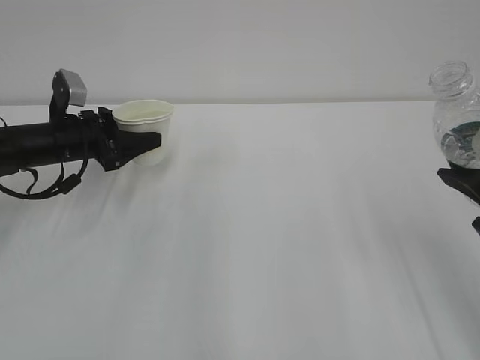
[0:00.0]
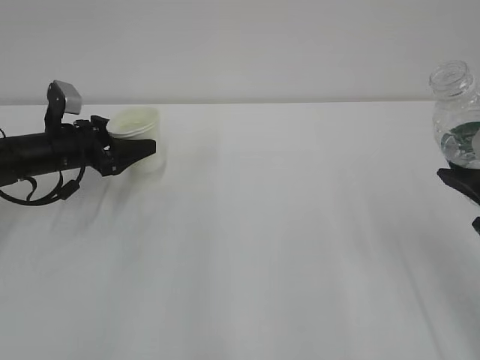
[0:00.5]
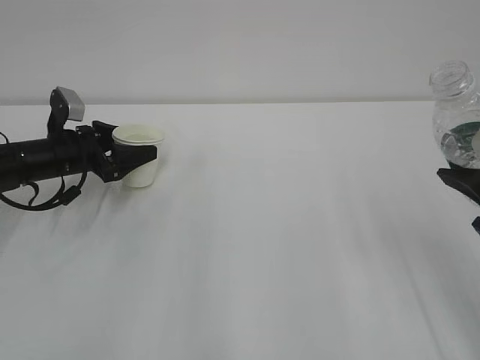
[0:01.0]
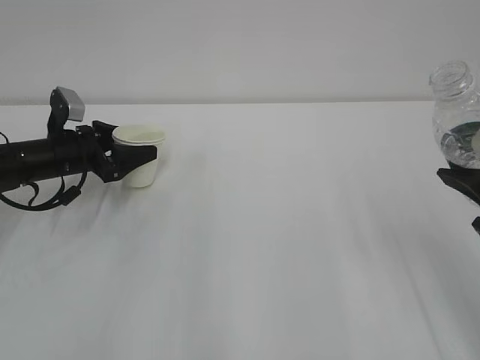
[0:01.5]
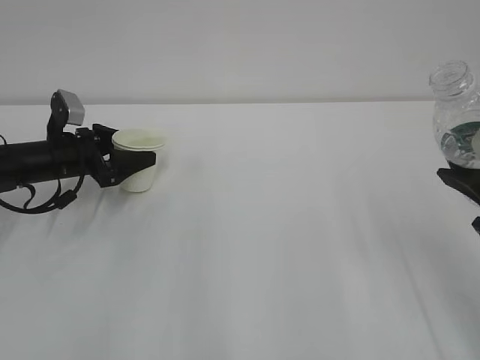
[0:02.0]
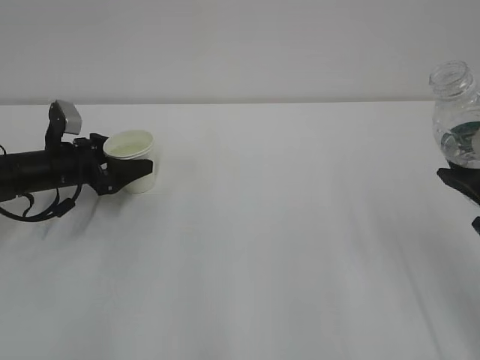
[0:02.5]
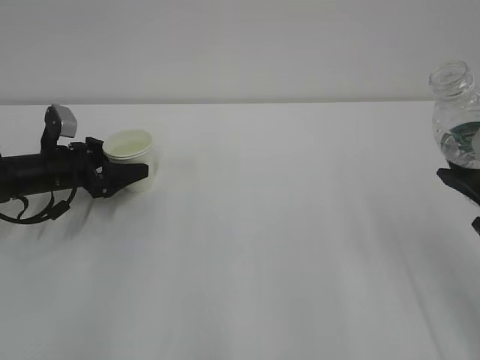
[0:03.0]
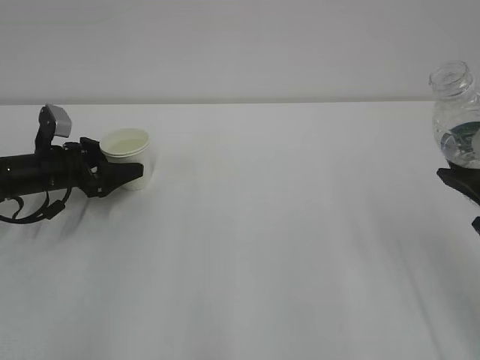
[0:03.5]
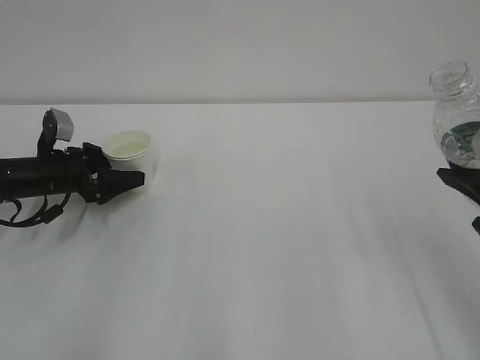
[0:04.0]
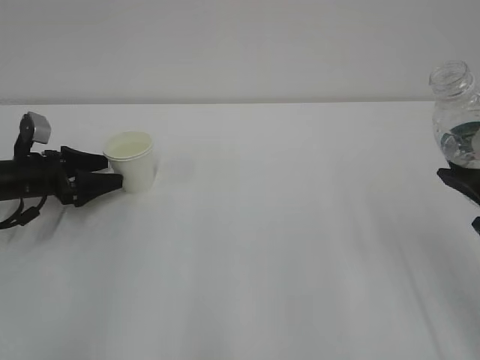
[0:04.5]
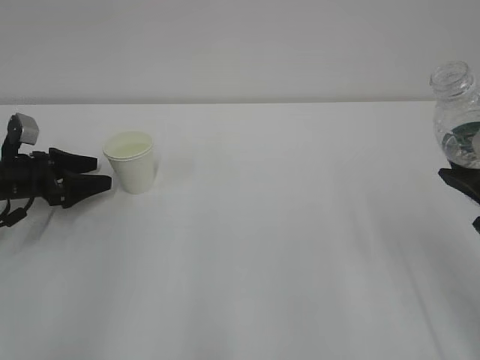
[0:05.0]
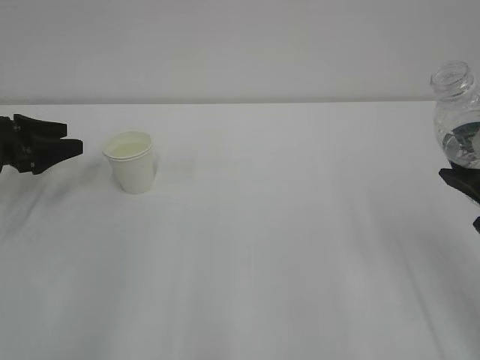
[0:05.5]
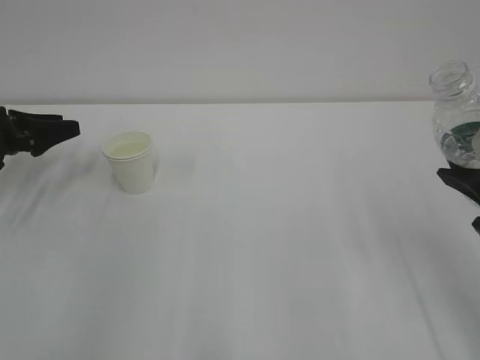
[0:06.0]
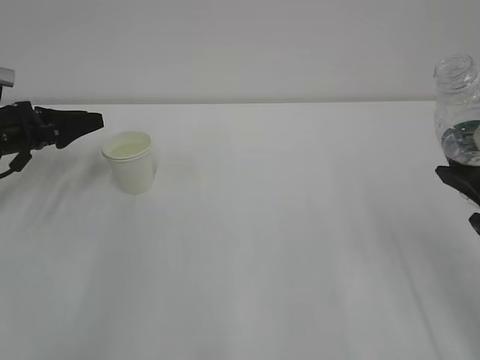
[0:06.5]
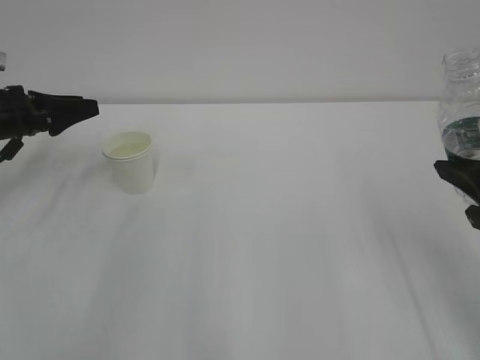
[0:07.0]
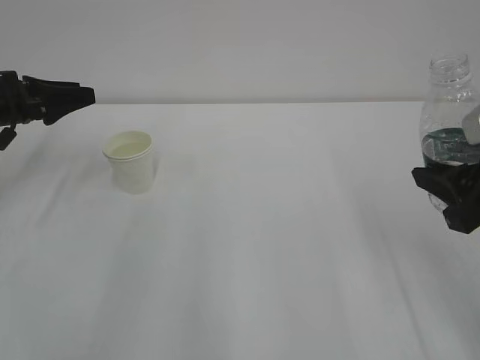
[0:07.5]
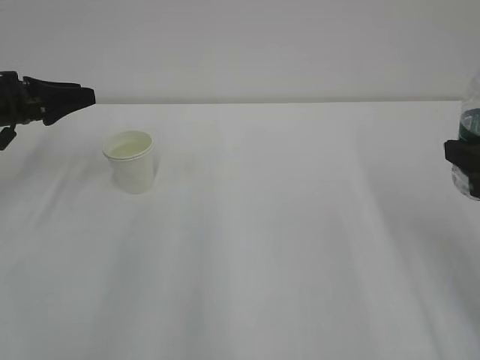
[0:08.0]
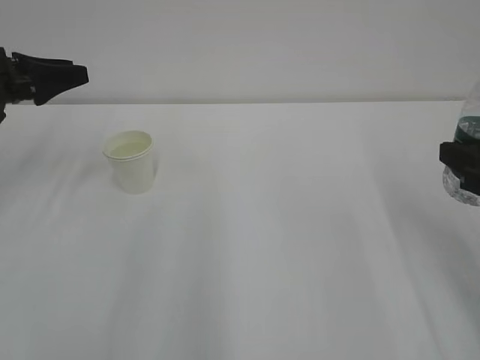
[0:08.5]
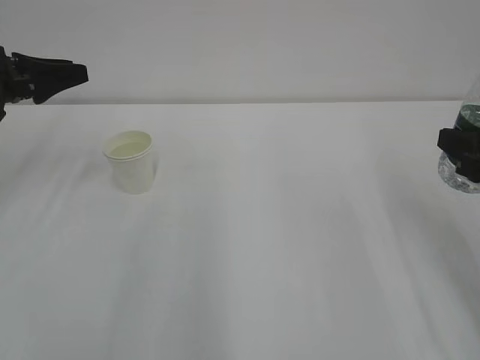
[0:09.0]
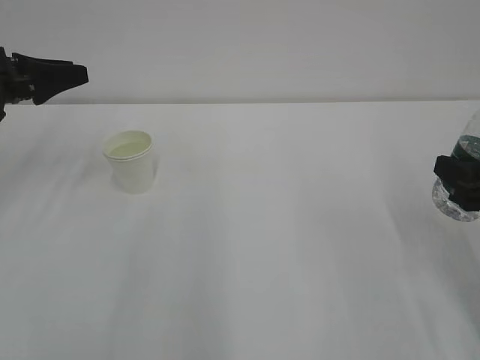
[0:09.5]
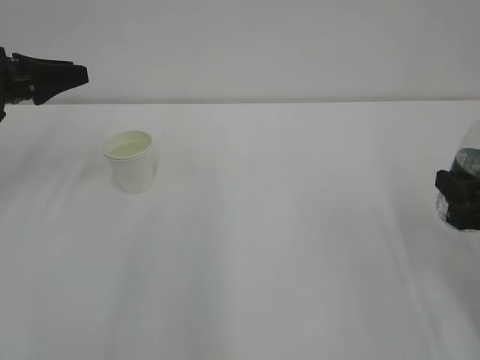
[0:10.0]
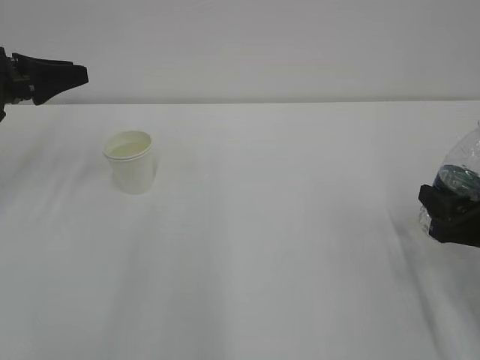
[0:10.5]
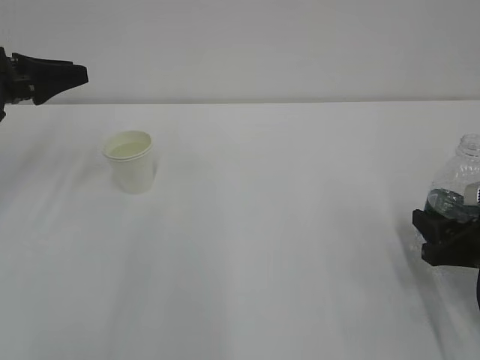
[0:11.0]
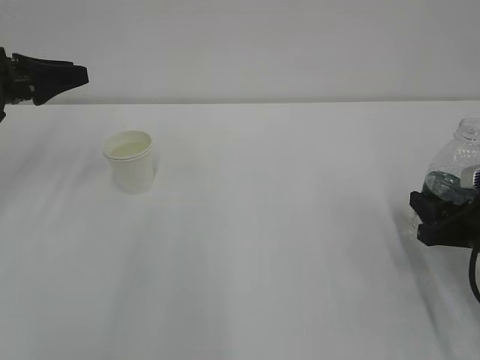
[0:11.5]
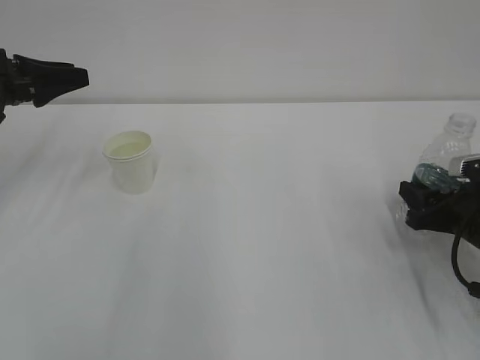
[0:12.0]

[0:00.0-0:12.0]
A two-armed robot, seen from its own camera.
0:00.0 to 0:02.0: The grippers move only a little.
0:02.0 to 0:04.0: The grippers make only small movements.
0:04.0 to 0:06.0: The left gripper is displaced to the left and upward by approximately 10 cm.
0:06.0 to 0:08.0: The left gripper shifts roughly 5 cm upward.
0:08.0 to 0:10.0: The right gripper shifts some 10 cm downward.
0:10.0 to 0:12.0: The right gripper travels downward and forward by about 10 cm.

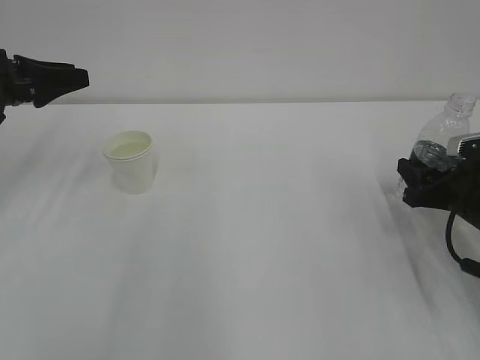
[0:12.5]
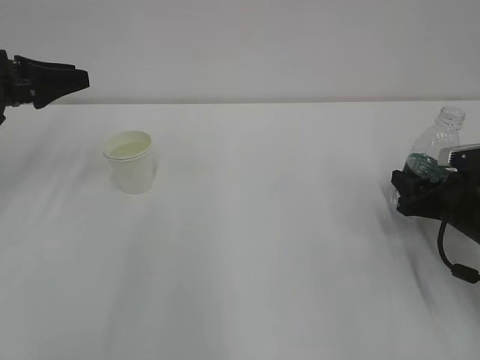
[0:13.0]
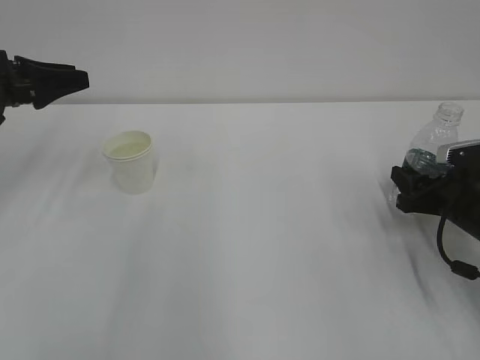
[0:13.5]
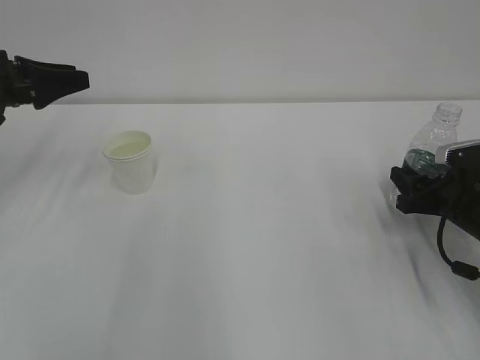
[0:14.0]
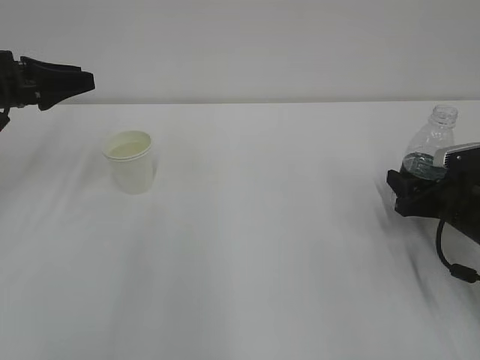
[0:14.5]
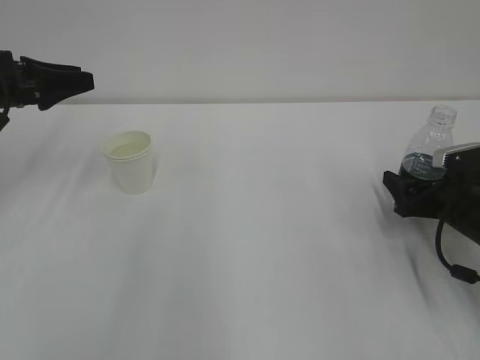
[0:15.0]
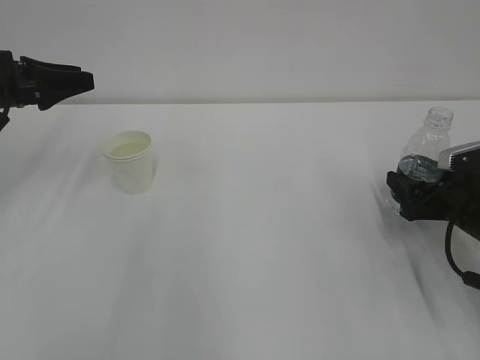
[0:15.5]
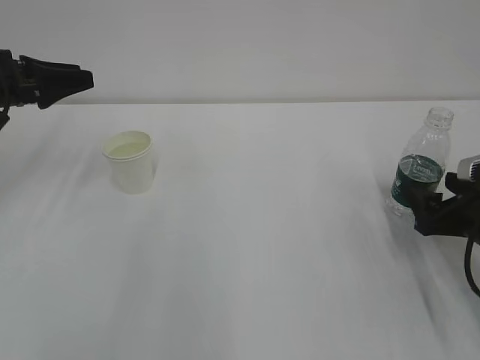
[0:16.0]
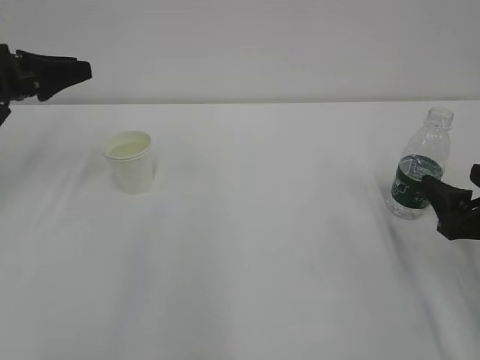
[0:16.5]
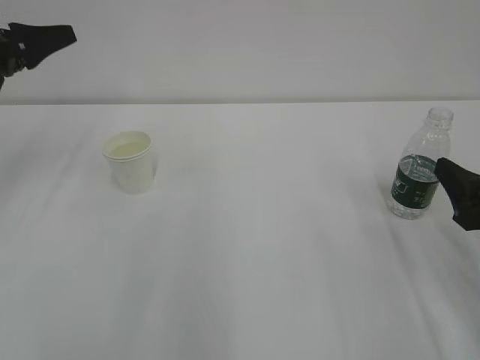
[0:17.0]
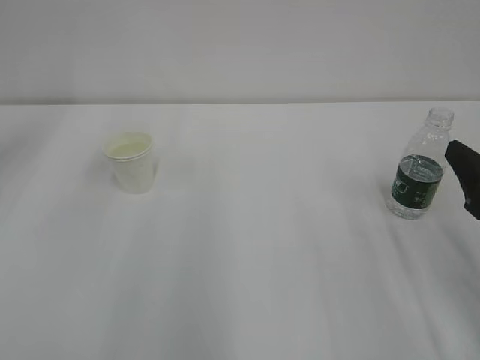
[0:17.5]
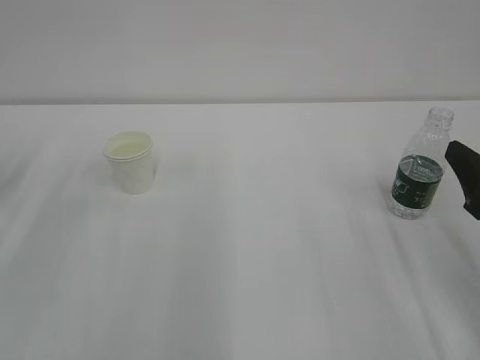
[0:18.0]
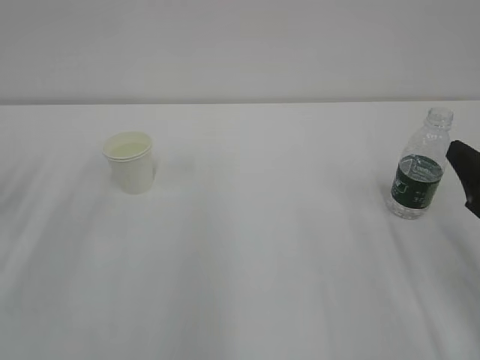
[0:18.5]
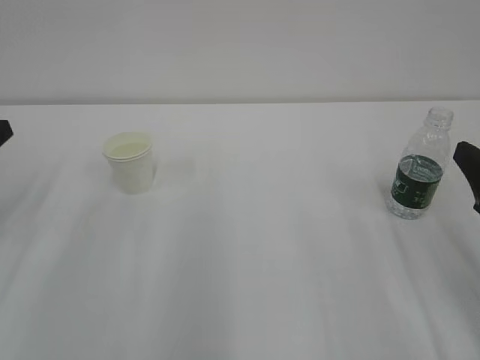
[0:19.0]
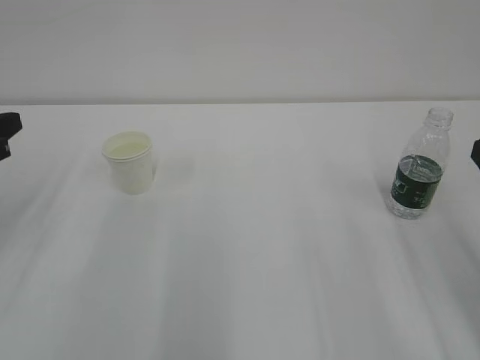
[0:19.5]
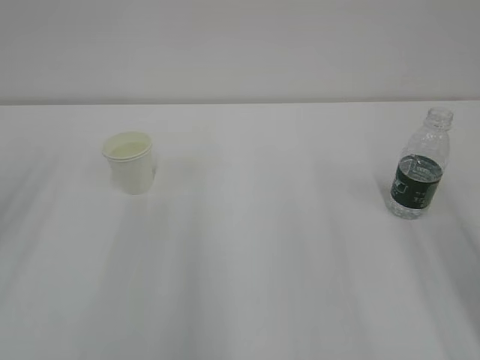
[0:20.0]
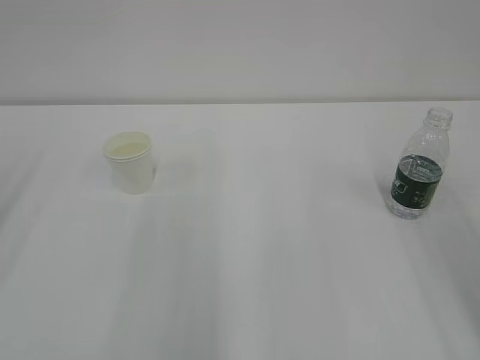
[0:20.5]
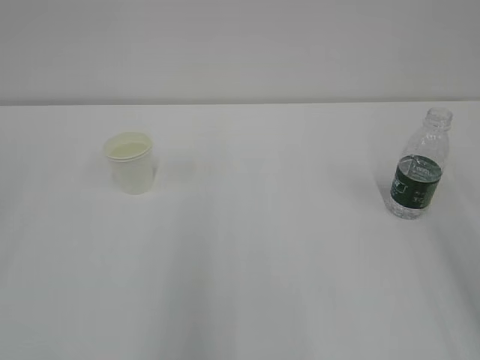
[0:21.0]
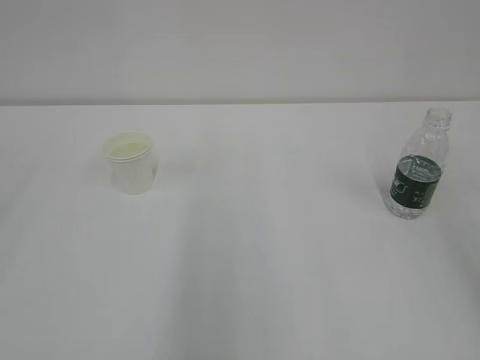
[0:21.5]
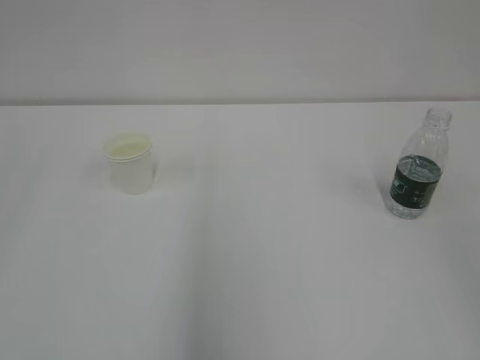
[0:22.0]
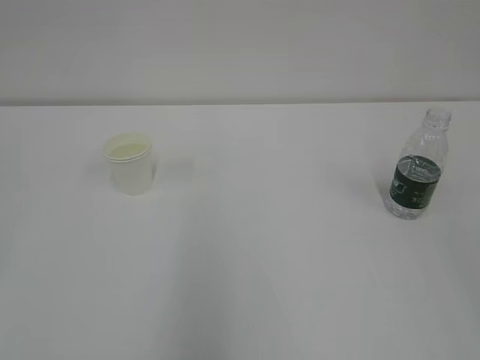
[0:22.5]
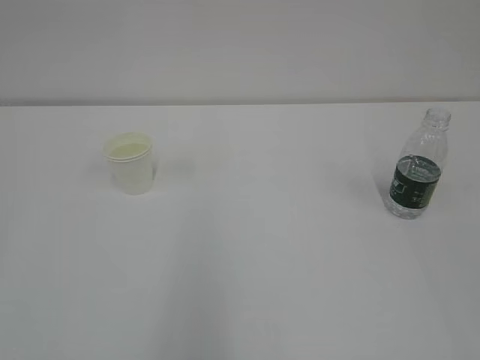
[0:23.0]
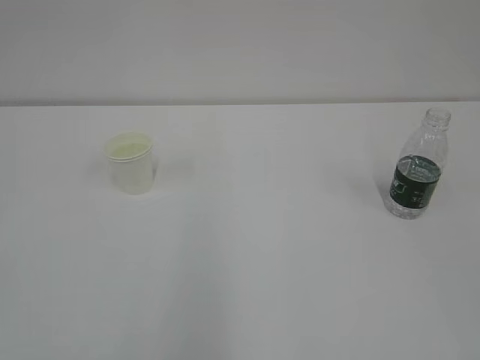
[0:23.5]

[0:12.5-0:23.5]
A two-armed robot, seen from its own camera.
0:12.5 to 0:14.5: The grippers stay close to where they were, moving slightly.
0:14.5 to 0:16.0: The right gripper goes roughly 5 cm backward, and opens.
0:16.0 to 0:18.0: The left gripper moves backward and to the left, roughly 10 cm, while the right gripper moves upward and backward, approximately 10 cm.
0:18.0 to 0:20.0: The right gripper goes roughly 10 cm upward.
